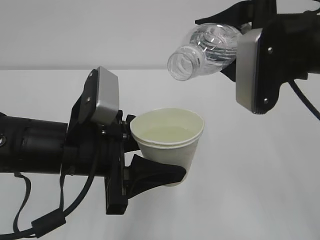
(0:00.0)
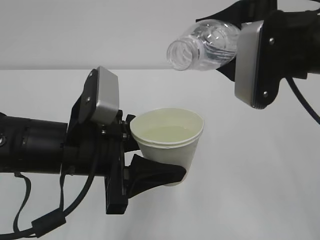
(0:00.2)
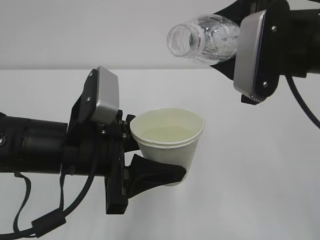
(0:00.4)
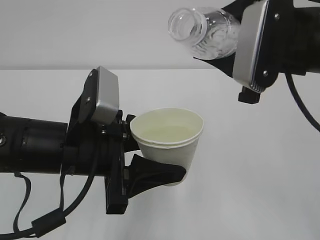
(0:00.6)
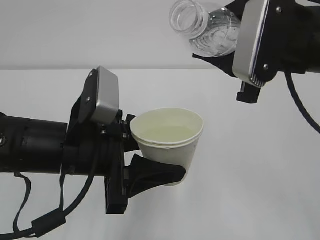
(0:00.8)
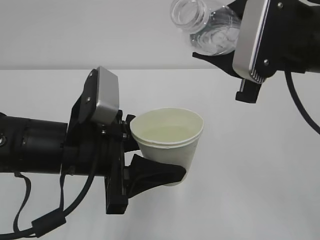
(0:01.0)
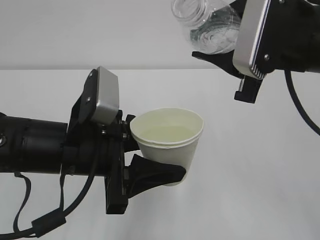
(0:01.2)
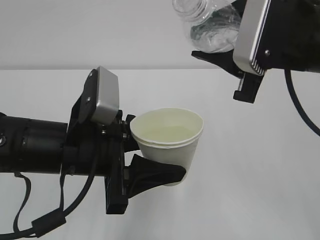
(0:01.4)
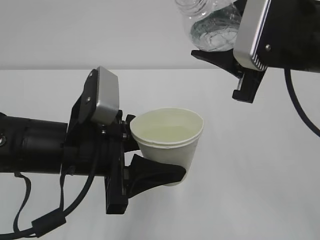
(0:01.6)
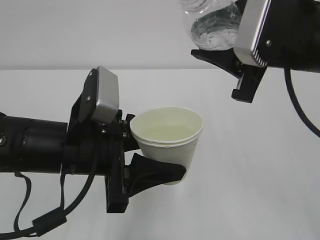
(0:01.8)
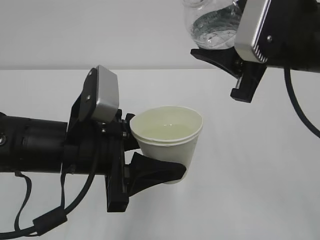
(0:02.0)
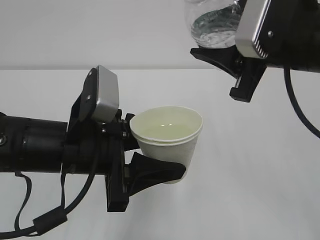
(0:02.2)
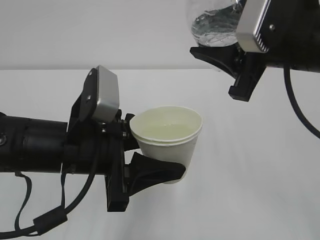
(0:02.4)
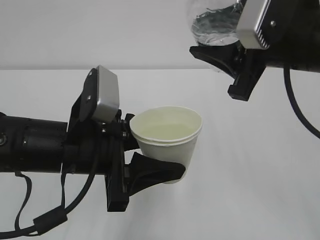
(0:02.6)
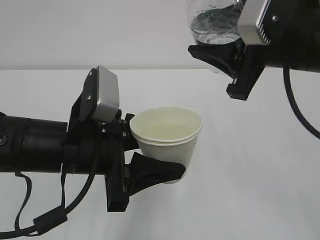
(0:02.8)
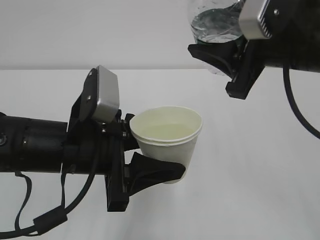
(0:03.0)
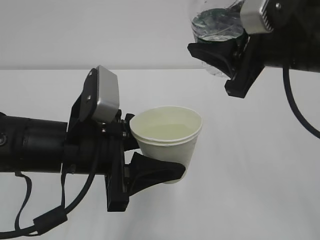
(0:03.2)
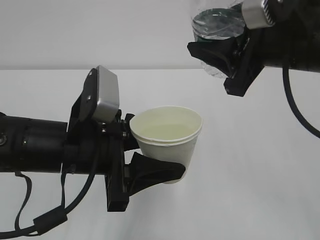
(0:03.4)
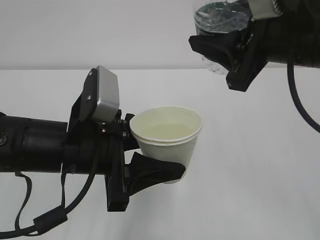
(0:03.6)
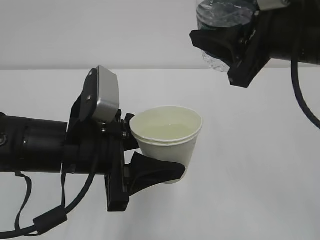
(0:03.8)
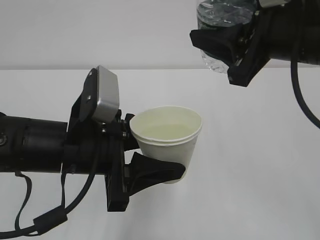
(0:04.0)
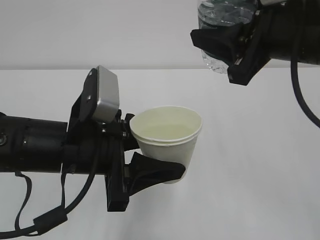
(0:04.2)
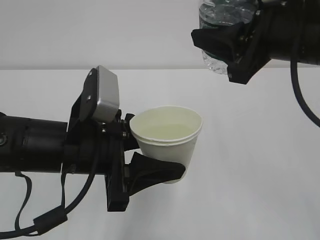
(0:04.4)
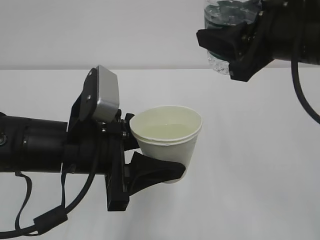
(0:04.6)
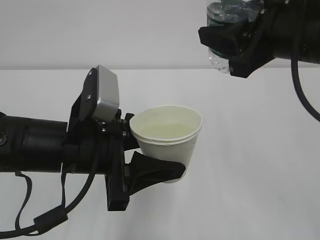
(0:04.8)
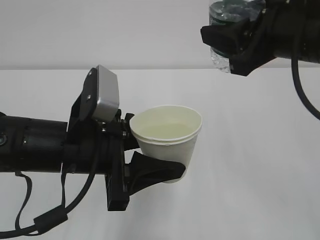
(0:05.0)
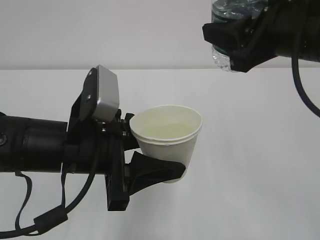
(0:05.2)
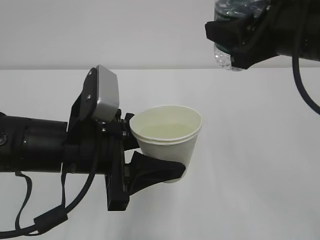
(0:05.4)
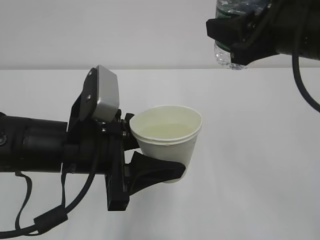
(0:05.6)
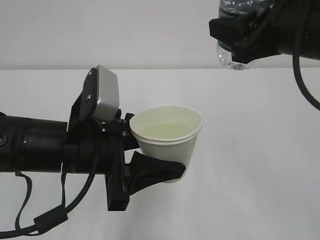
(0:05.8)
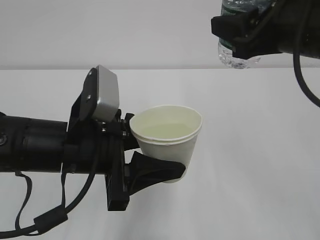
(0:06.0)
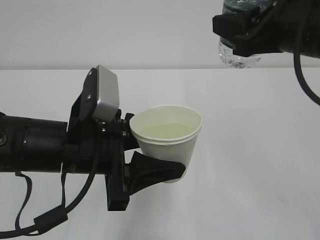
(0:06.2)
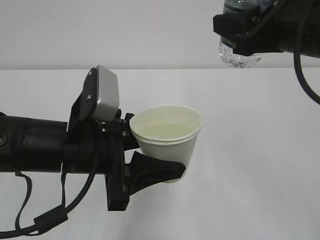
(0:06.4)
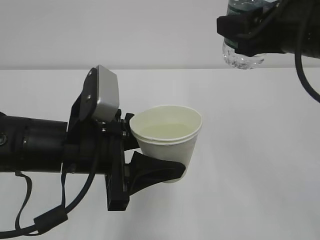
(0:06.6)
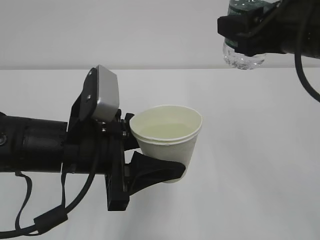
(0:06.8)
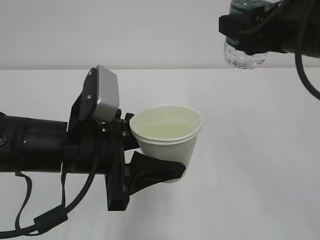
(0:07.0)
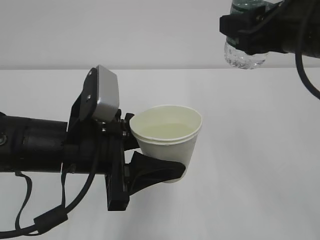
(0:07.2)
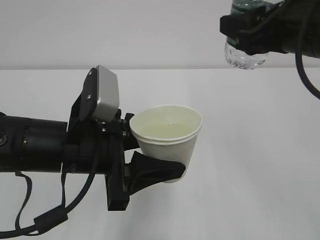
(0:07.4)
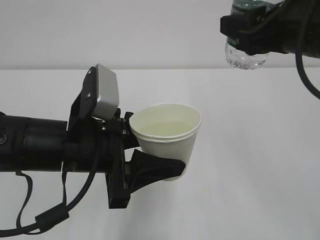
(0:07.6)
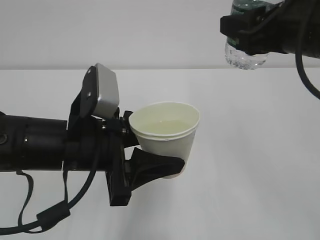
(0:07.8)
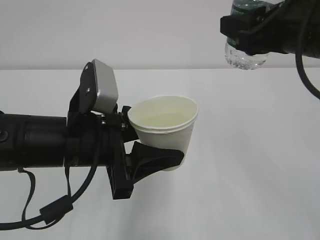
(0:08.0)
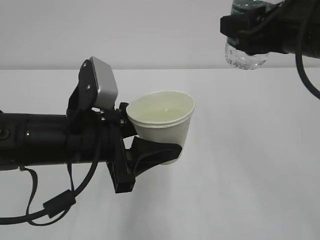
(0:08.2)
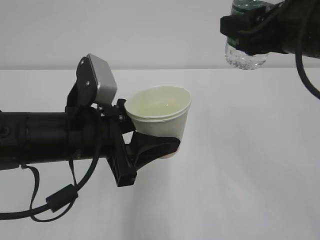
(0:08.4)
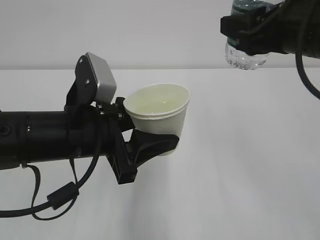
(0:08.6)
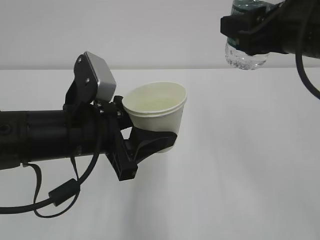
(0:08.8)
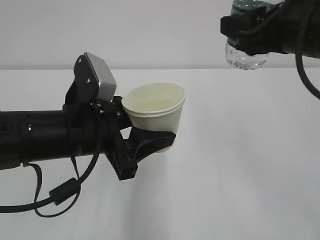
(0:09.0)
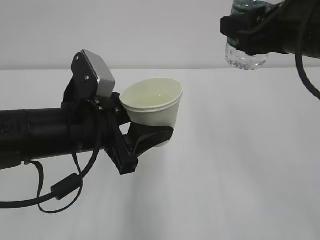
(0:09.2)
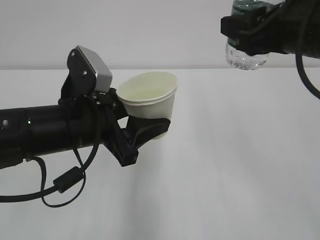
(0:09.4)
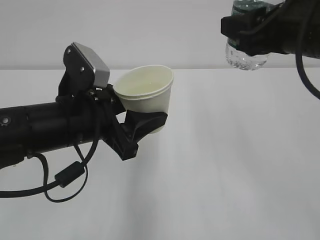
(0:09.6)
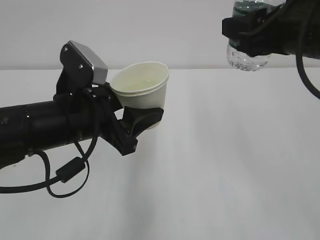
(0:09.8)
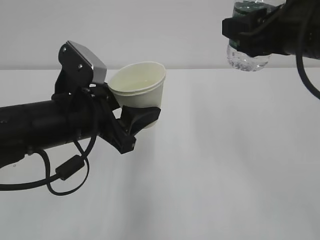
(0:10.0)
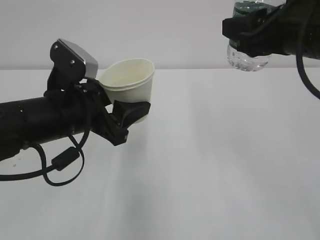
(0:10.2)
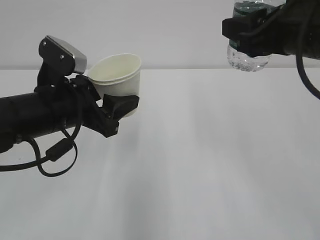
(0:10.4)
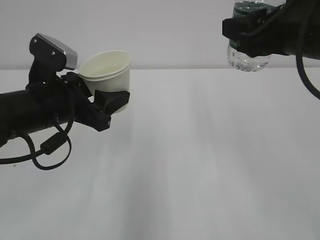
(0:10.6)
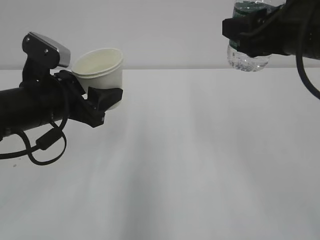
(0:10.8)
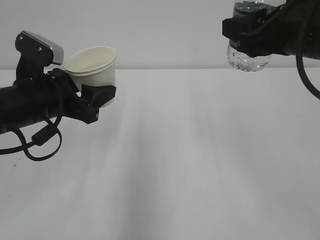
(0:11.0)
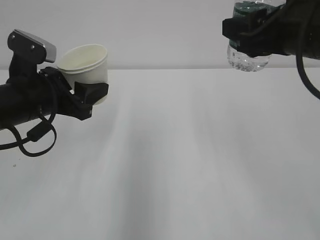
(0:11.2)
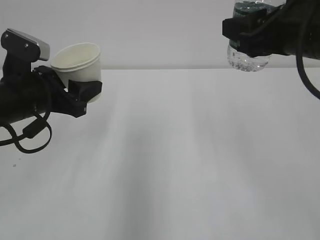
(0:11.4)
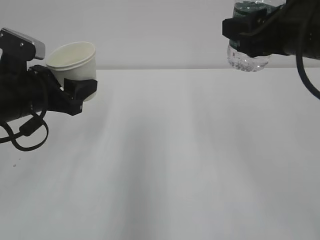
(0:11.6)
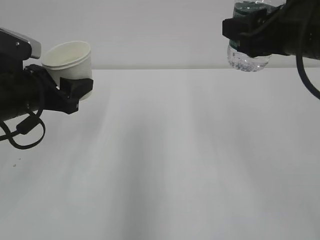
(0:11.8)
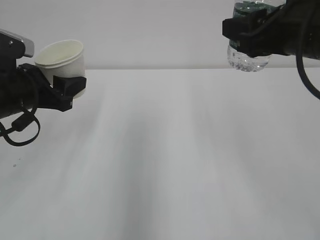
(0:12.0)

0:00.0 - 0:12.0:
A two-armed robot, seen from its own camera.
0:01.6 - 0:03.0: The grippers move only a little.
0:03.0 - 0:04.4: The grippers make only small movements.
0:04.4 - 0:06.0: The grippers move only a little.
0:06.0 - 0:09.0: There are only small adjustments of the grippers.
0:09.0 - 0:10.4: The left gripper ends up some 5 cm from where it was.
0:10.4 - 0:12.0: The left gripper is displaced to the left by some 10 cm.

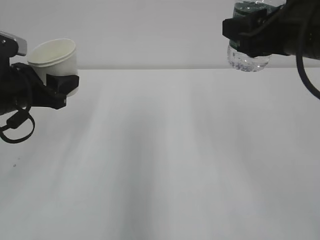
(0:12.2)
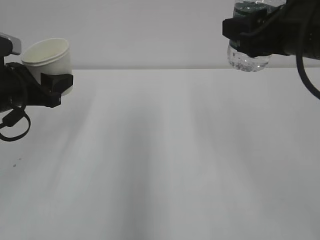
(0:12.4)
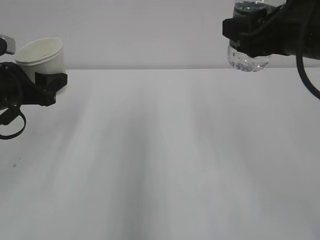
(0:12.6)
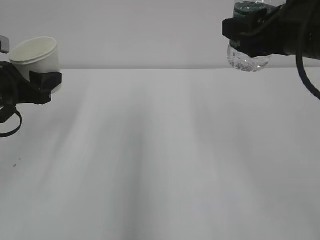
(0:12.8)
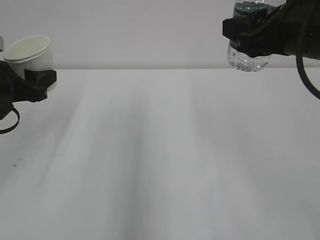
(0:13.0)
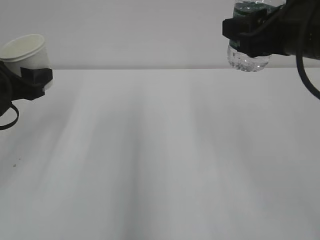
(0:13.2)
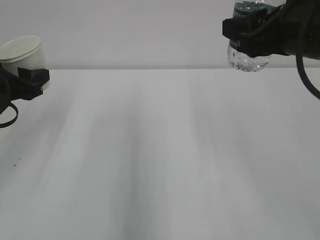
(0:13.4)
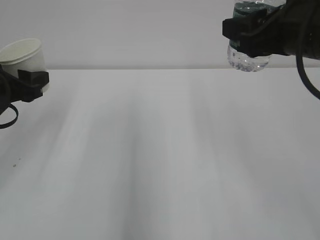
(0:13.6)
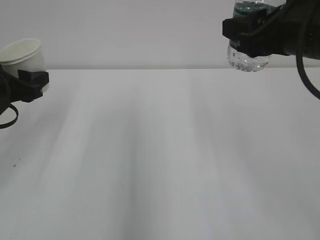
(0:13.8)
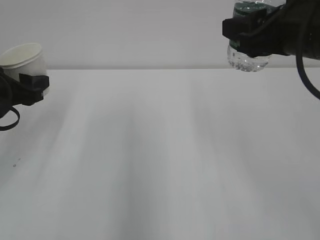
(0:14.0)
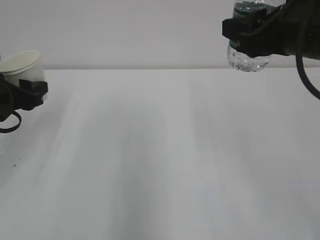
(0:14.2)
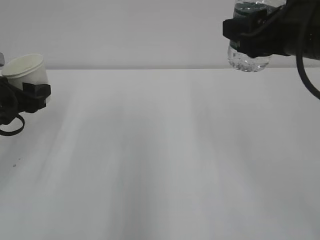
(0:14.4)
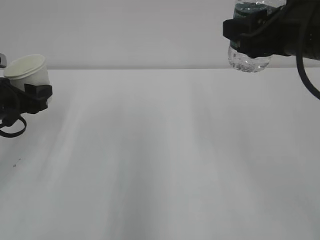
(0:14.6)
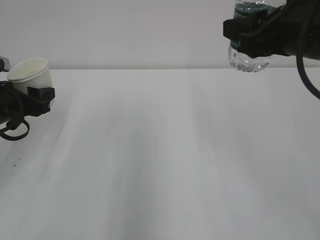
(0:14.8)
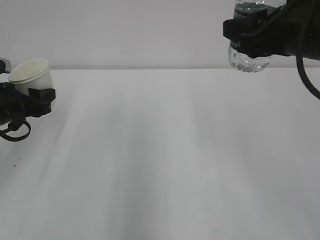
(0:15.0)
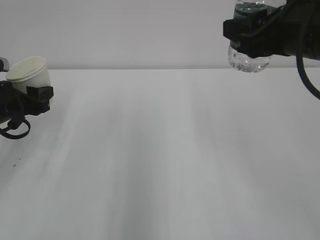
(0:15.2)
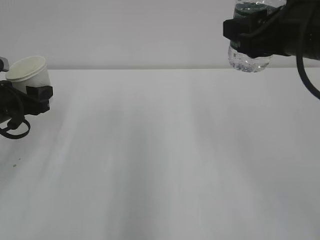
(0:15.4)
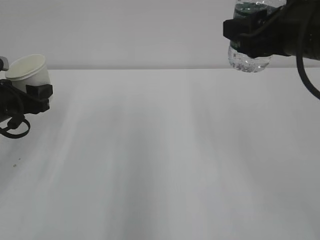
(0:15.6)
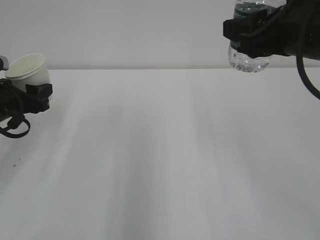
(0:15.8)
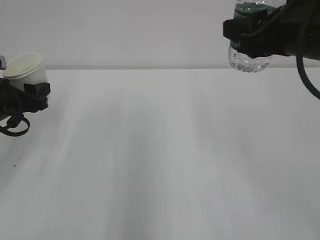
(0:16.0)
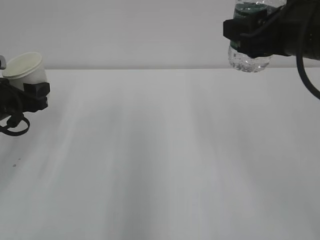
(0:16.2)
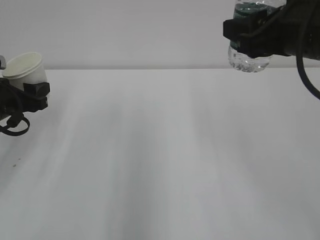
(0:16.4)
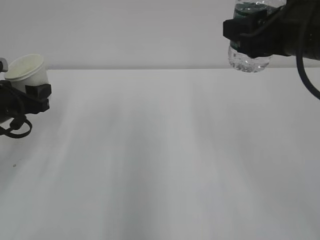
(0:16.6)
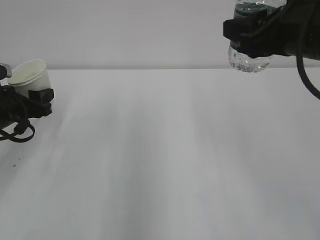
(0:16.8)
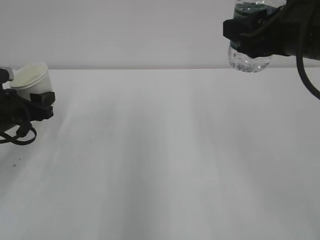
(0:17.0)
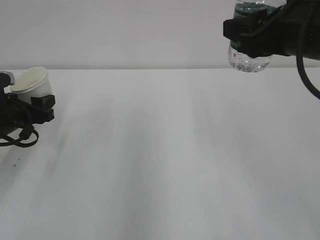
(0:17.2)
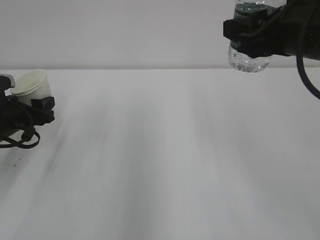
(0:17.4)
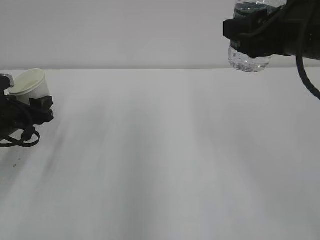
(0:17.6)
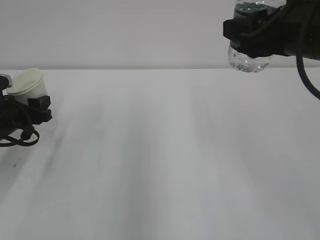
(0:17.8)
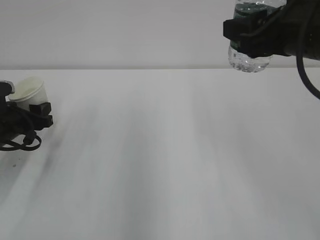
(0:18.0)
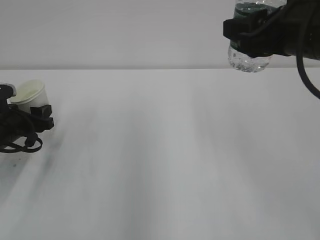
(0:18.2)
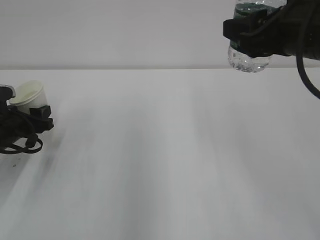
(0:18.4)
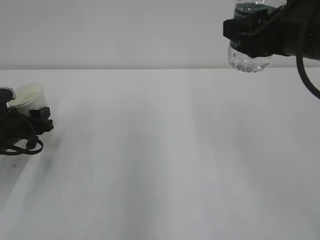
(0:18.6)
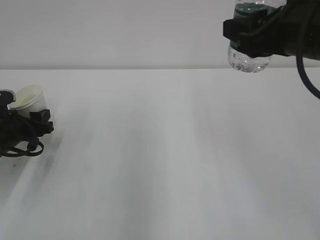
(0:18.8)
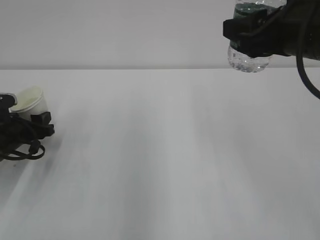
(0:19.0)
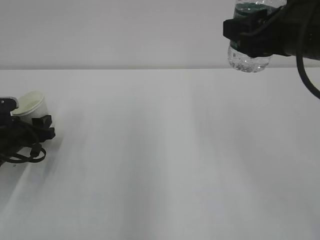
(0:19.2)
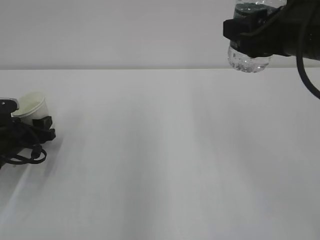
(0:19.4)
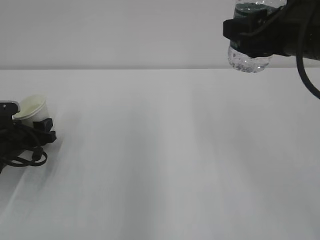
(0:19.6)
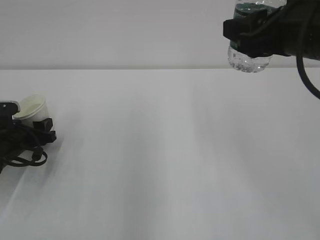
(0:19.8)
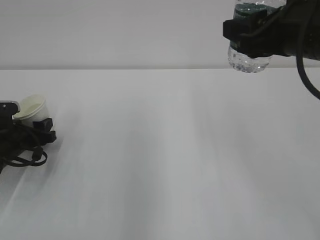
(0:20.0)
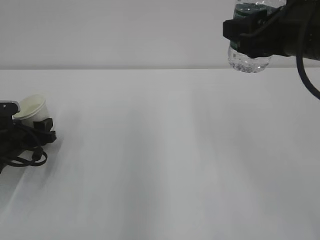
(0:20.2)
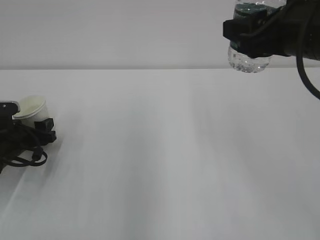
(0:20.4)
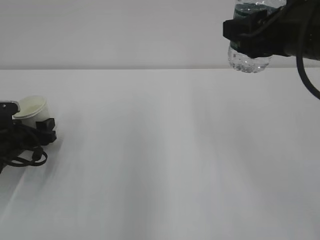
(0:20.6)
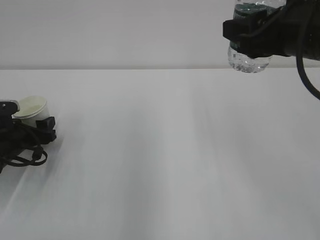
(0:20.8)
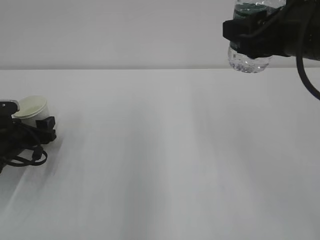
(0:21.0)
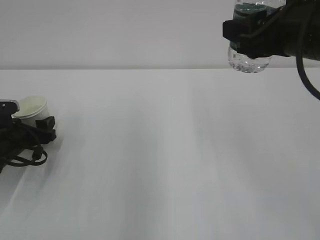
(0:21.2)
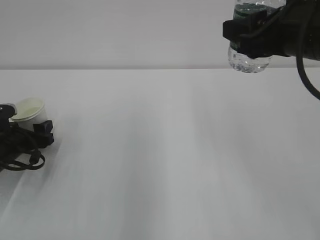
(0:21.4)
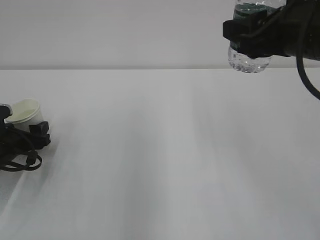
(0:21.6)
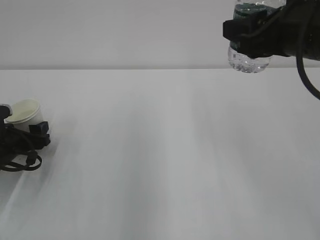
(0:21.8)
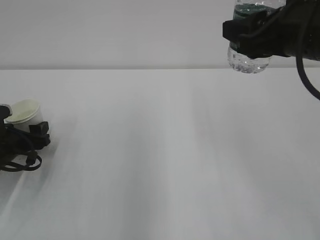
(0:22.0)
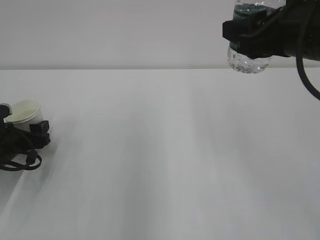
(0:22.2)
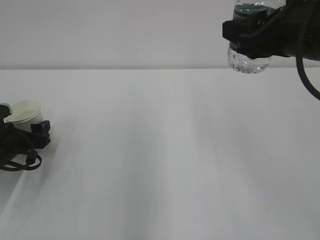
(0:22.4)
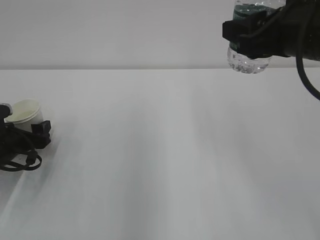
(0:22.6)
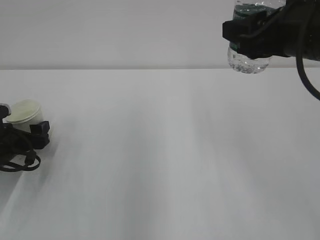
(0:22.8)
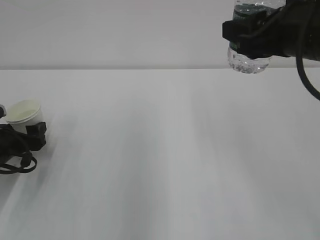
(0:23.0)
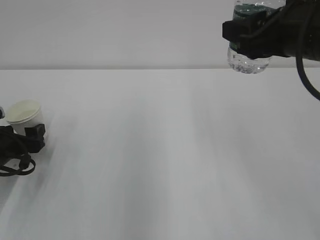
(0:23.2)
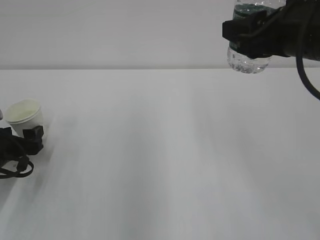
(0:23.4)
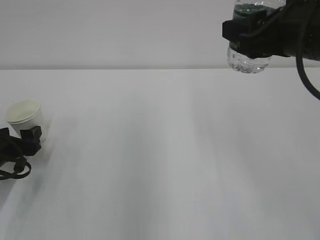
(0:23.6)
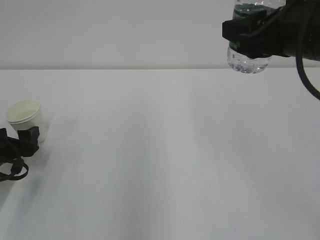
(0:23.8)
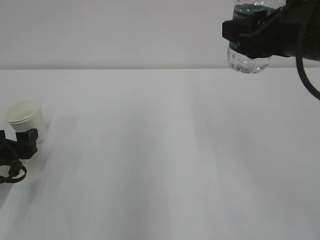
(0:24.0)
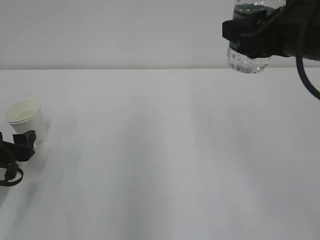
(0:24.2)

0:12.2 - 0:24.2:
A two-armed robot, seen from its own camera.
0:12.2 - 0:13.8: The grippers make only small movements.
0:13.8 - 0:15.2: The grippers move only a little.
0:15.2 - 0:16.6: Both grippers stay about where they are.
0:16.6 - 0:18.2: The left gripper goes about 5 cm downward.
0:18.2 - 0:19.8: The grippers make only small movements.
0:21.2 - 0:22.6: The grippers make only small movements.
0:22.6 - 0:24.2: The left gripper changes place by roughly 5 cm.
